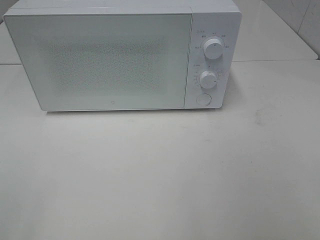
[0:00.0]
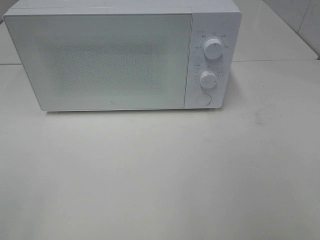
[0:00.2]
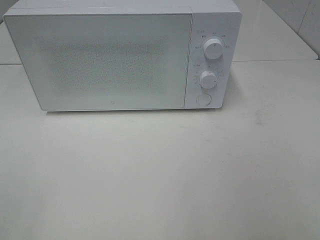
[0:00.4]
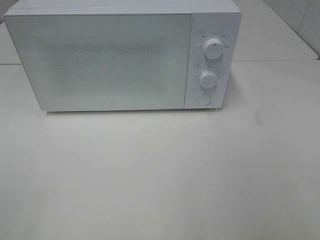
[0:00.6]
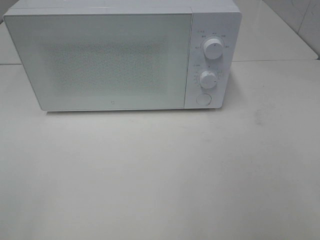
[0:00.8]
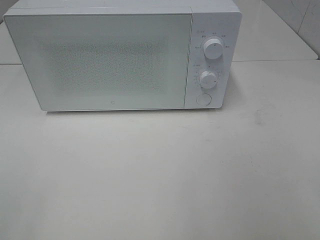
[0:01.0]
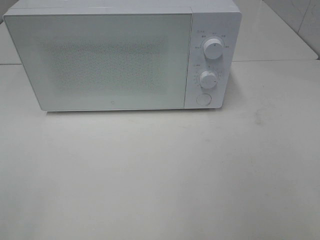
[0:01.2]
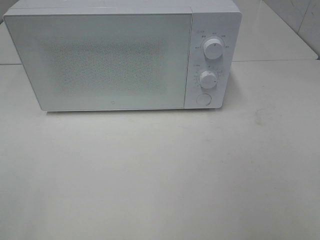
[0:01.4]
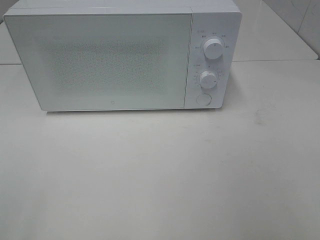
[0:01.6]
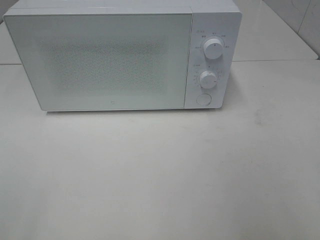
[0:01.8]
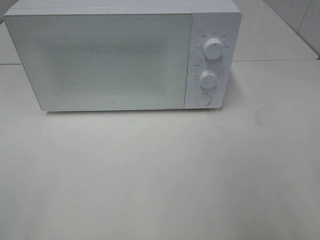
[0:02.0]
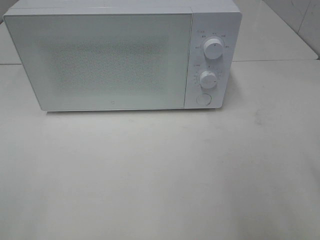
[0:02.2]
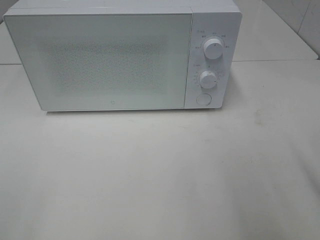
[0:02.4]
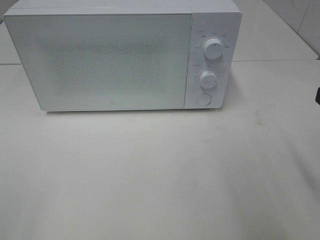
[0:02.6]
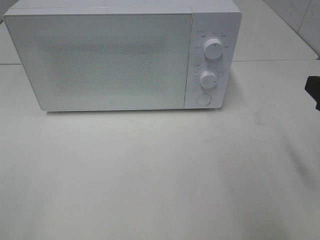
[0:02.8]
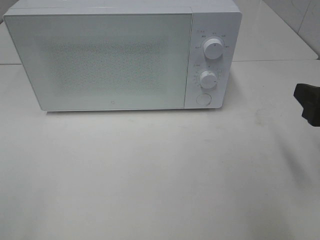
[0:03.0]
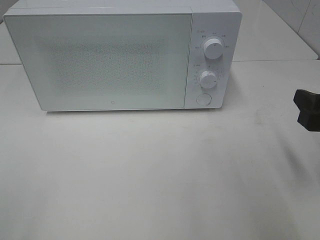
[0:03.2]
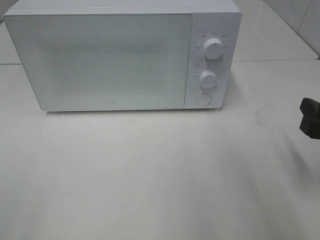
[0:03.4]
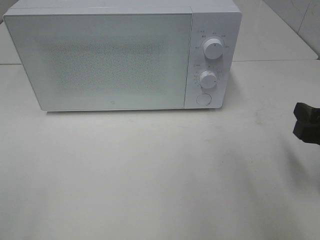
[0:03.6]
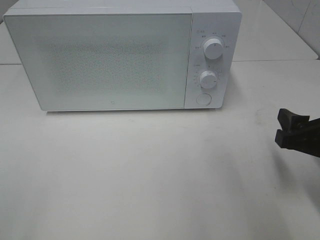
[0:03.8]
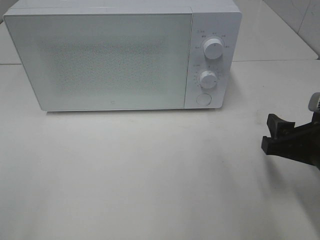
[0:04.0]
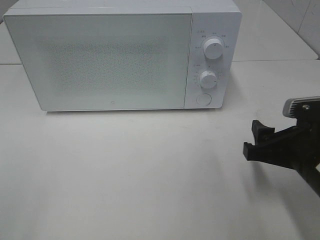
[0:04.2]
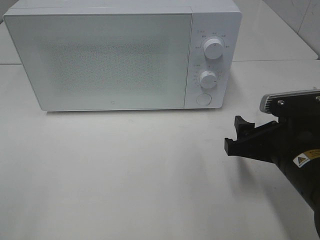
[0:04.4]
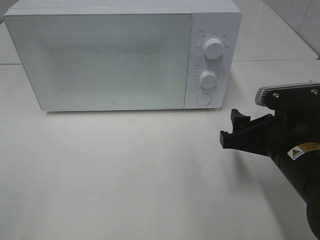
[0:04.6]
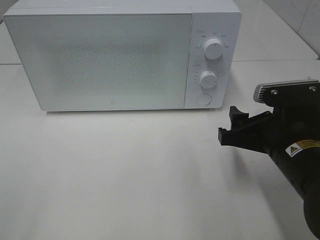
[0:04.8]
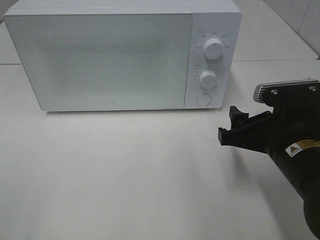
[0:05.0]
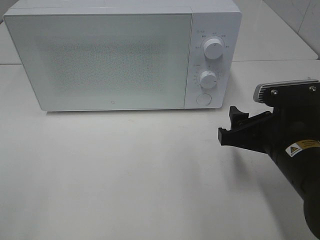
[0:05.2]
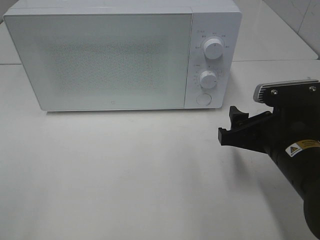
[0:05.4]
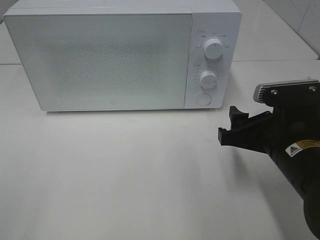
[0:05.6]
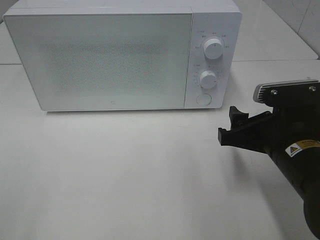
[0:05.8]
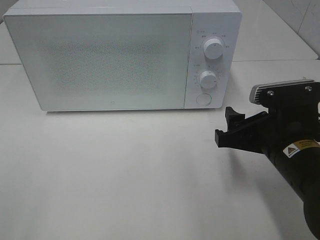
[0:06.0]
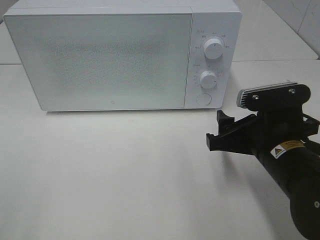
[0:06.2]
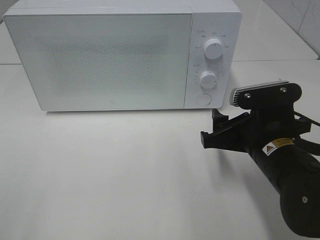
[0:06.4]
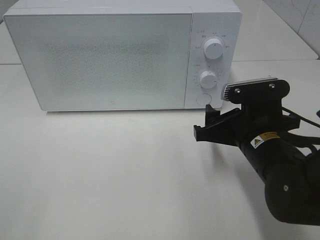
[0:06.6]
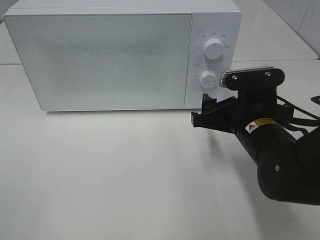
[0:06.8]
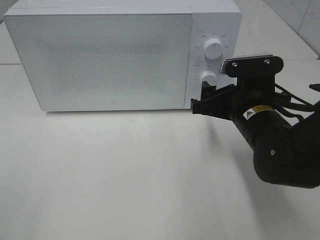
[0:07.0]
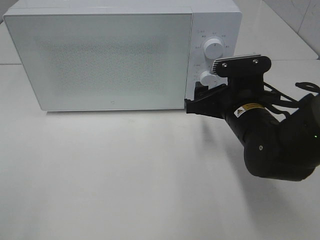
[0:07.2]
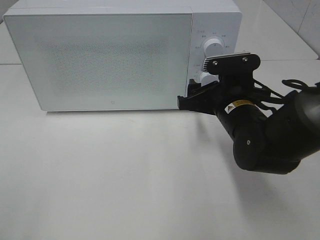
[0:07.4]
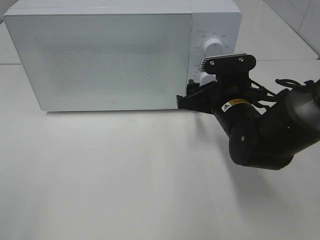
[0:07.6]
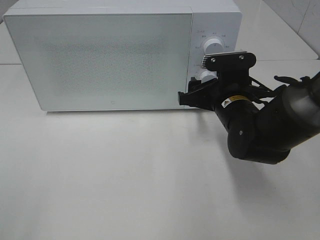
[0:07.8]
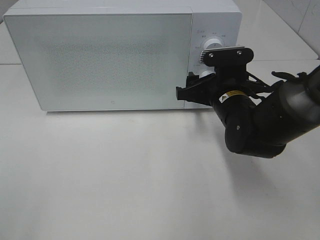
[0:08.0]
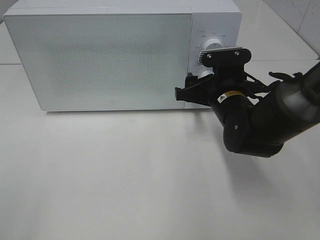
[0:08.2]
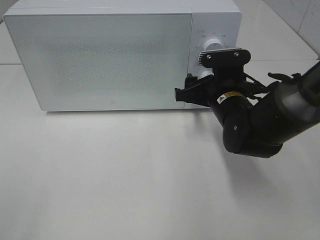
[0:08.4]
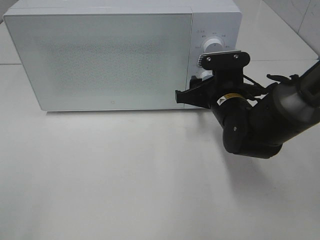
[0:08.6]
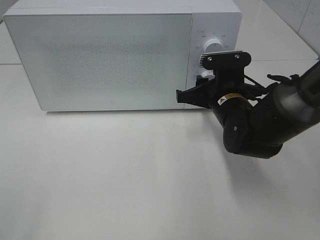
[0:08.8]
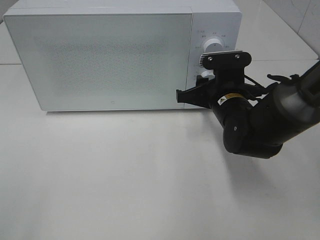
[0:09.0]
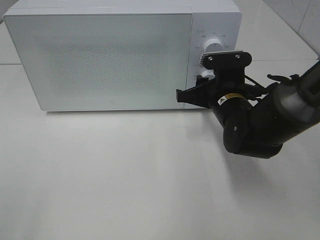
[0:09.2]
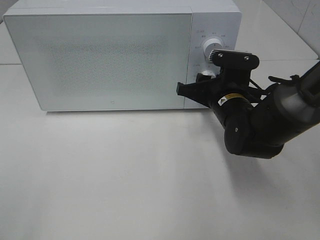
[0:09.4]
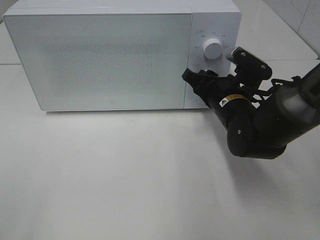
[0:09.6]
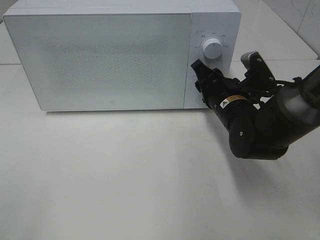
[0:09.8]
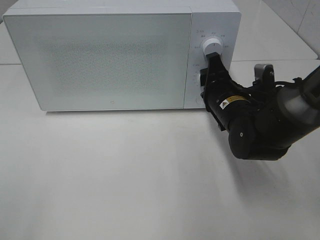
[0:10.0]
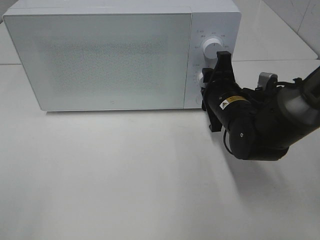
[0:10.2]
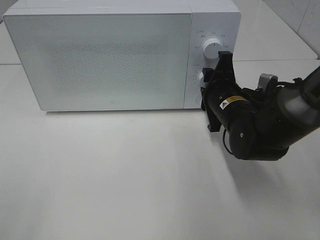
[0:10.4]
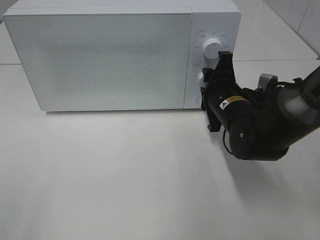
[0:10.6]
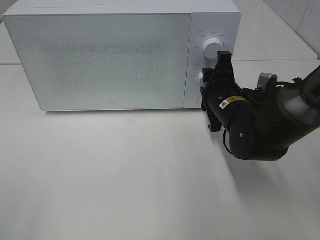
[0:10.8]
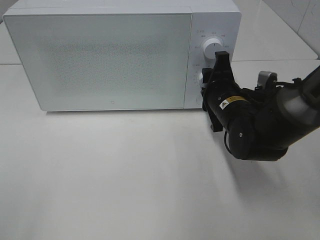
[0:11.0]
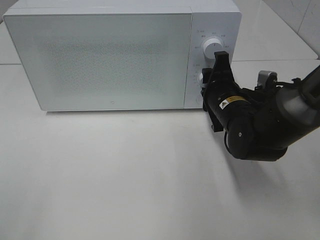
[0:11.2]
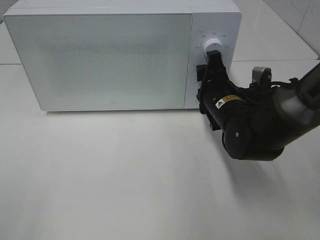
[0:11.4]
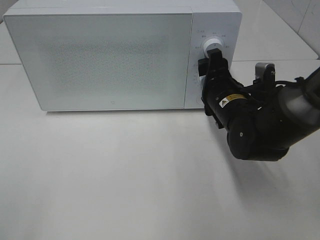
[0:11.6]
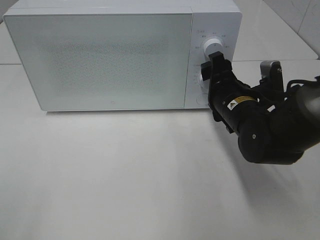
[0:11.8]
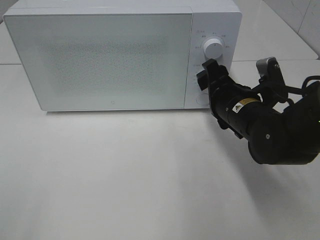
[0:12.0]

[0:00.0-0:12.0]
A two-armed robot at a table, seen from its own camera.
Task of the whole recording: Heat the burger.
Step, 0:00.0 to 0:11.6: Right hand: twist timer button.
0:01.6 to 0:03.0: The right gripper heads forward and downward, covering roughly 15 cm.
0:03.0 to 0:04.4: The right gripper is displaced to the left and downward by roughly 10 cm.
0:04.4 to 0:06.0: The grippers move only a little.
0:06.0 to 0:07.6: The right gripper travels forward by some 10 cm.
0:07.6 to 0:09.0: The right gripper closes up.

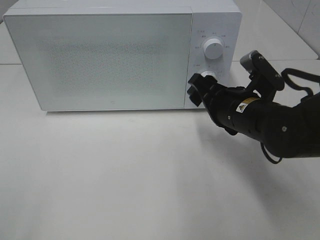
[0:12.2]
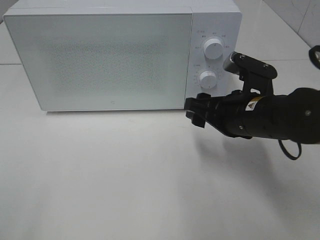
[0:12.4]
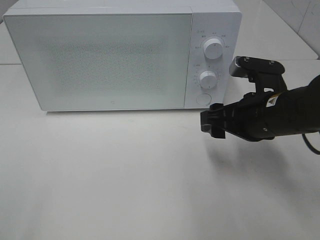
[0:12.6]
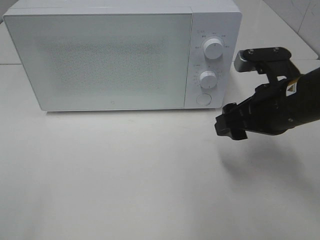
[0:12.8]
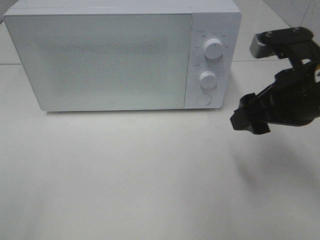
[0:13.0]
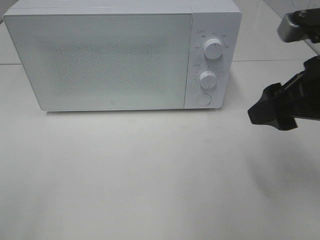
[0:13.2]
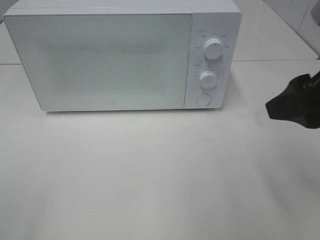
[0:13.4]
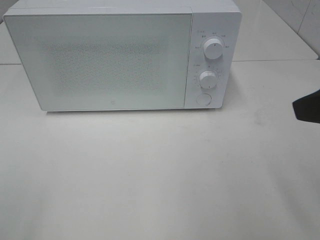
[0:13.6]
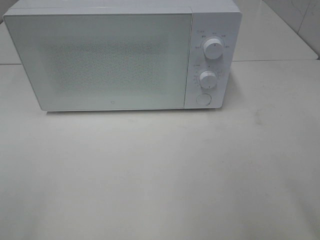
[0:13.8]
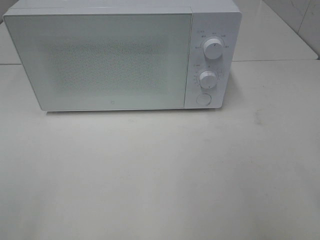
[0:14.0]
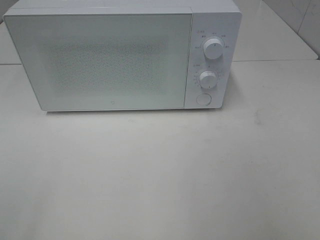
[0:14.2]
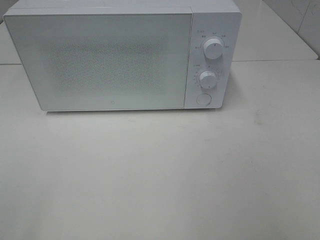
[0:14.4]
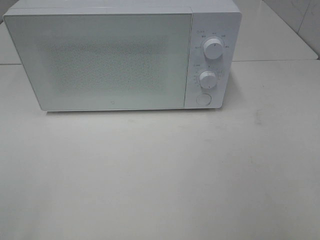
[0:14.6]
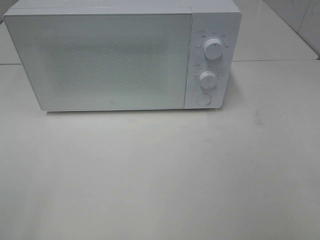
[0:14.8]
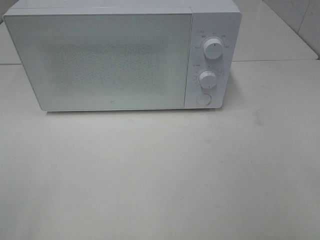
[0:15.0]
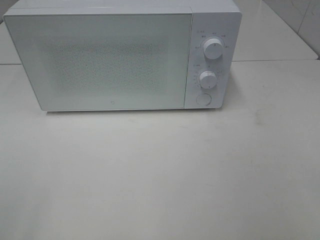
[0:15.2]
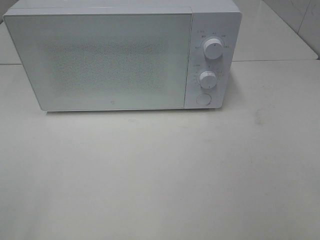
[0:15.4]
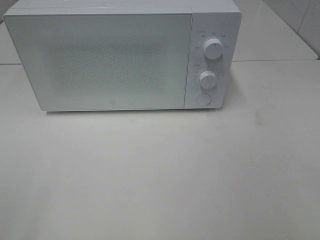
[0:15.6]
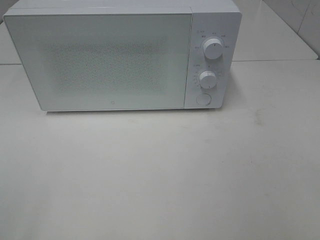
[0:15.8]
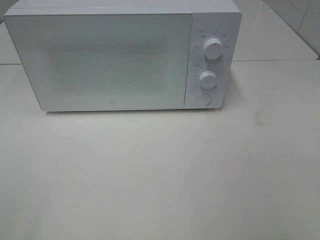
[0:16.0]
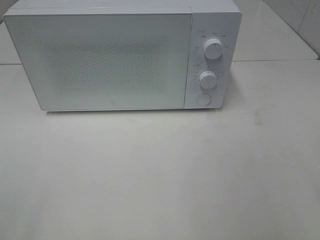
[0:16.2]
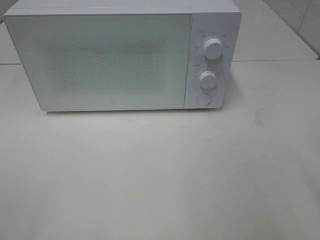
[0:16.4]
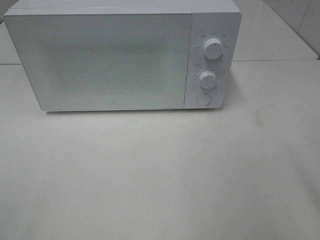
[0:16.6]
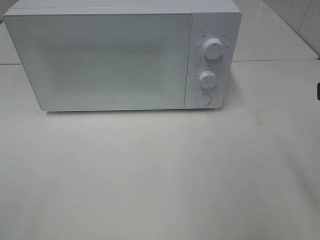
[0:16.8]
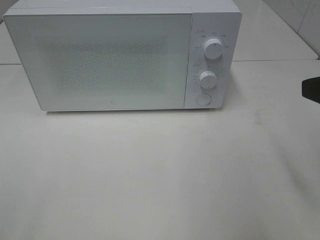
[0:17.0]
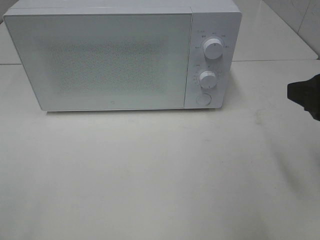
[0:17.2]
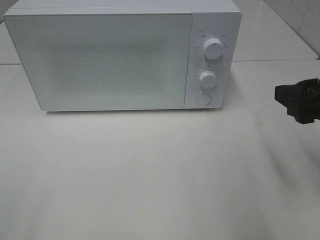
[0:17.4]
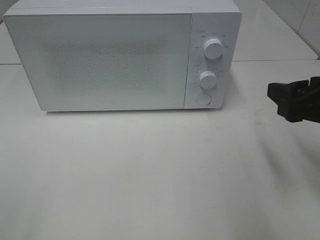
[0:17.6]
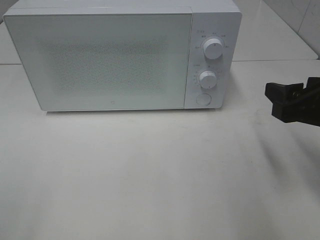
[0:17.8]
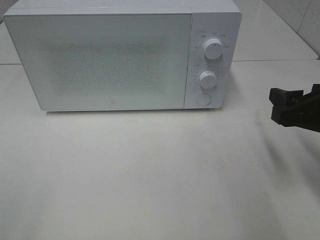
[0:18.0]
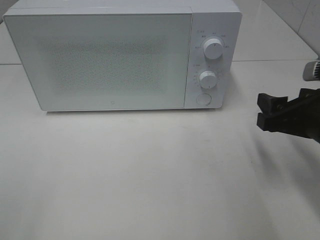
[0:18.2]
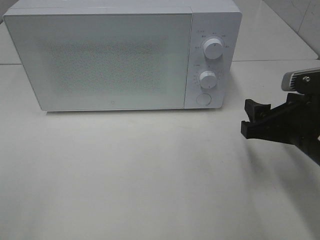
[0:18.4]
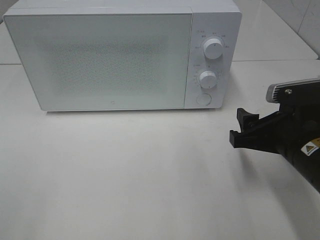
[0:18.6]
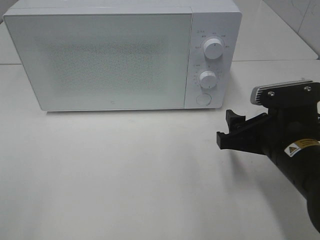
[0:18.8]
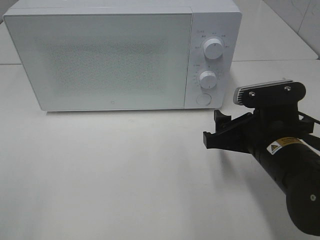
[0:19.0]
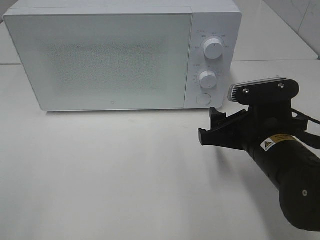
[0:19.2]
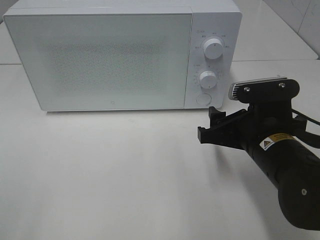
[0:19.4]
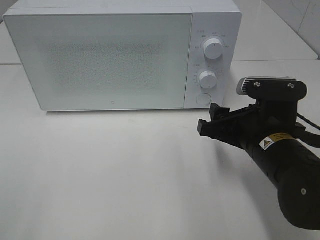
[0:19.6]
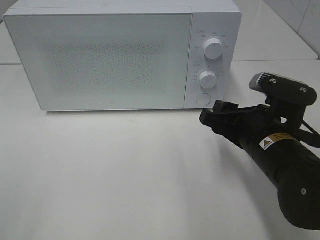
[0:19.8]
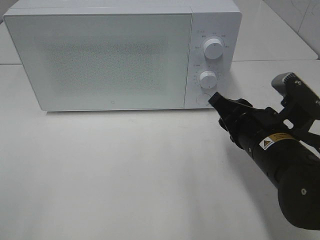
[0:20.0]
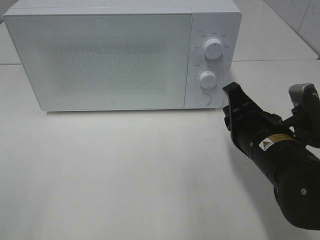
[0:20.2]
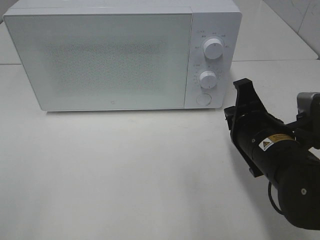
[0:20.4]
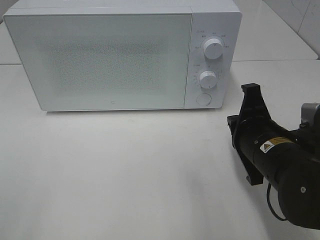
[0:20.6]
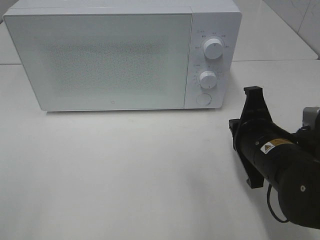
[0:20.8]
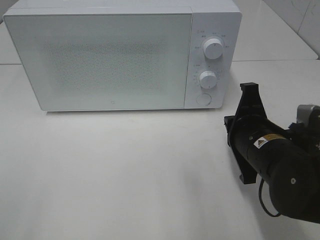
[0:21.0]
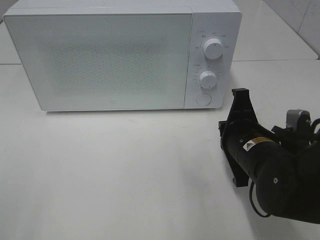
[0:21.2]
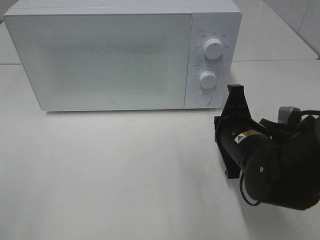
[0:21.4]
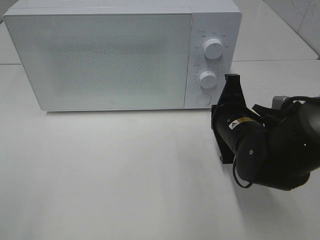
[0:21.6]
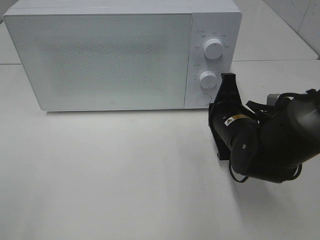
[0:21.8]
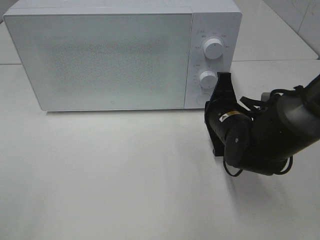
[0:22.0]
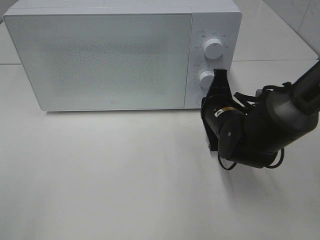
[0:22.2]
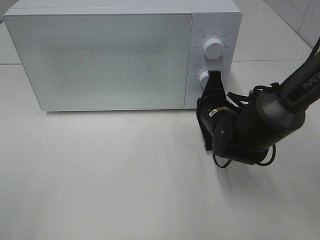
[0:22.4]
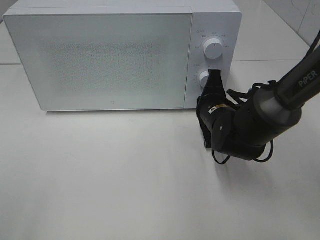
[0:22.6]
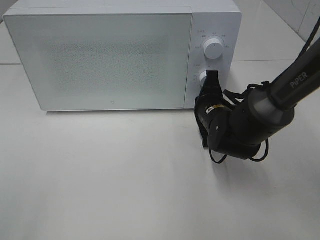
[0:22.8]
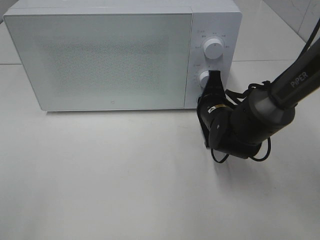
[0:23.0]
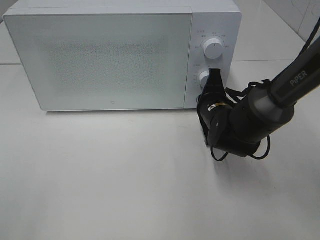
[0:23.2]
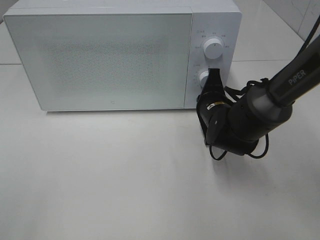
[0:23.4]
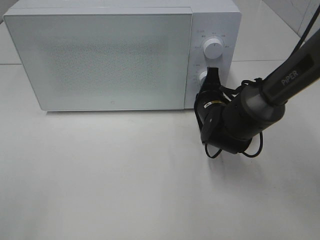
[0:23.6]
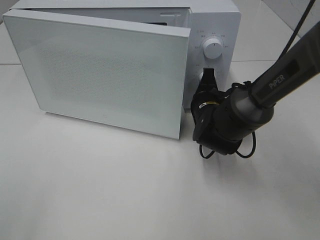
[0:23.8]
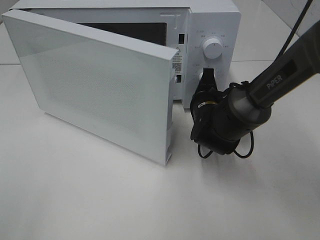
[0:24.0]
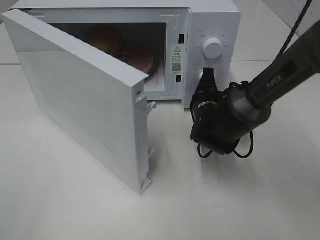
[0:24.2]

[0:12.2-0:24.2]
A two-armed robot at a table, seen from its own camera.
Task of the whole recording: Heat the burger.
0:12.2 to 0:13.8: The right gripper travels upward, backward and to the right by roughly 25 cm.
0:16.6 to 0:18.2: The right gripper shifts approximately 15 cm downward and forward.
0:18.2 to 0:19.8: The right gripper heads to the left, covering about 10 cm.
0:19.8 to 0:21.2: The right gripper closes up.
0:21.2 to 0:22.6: The right gripper is displaced forward by approximately 10 cm.
